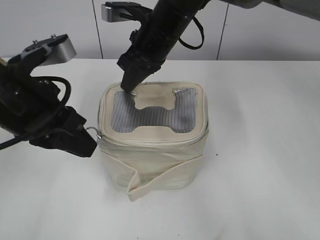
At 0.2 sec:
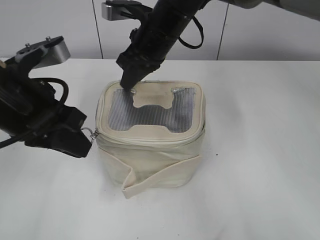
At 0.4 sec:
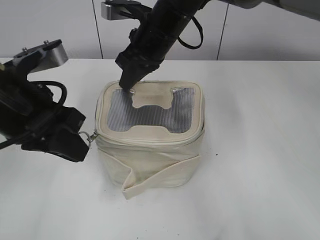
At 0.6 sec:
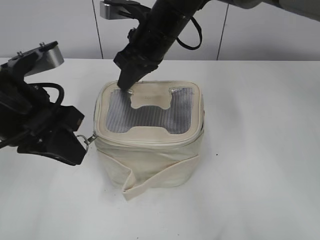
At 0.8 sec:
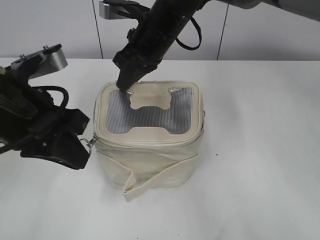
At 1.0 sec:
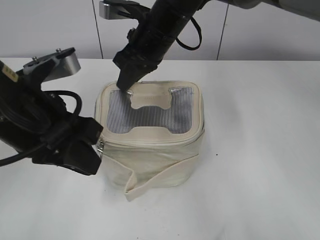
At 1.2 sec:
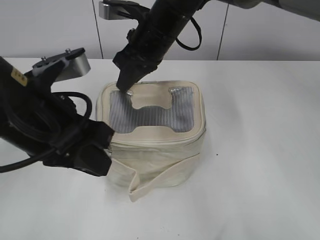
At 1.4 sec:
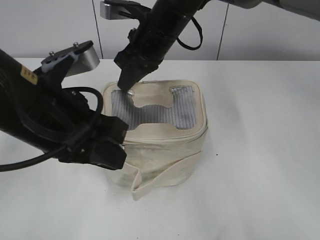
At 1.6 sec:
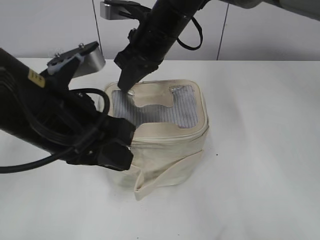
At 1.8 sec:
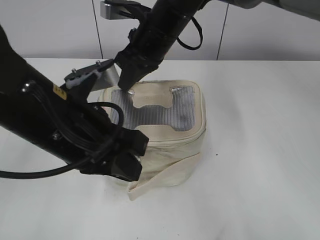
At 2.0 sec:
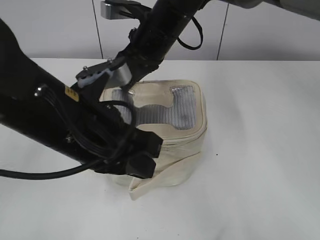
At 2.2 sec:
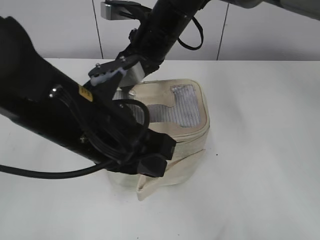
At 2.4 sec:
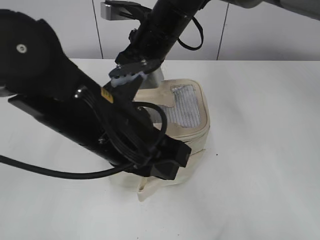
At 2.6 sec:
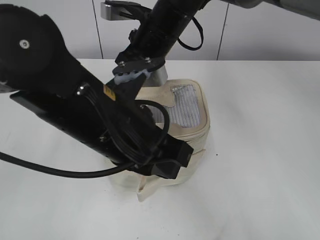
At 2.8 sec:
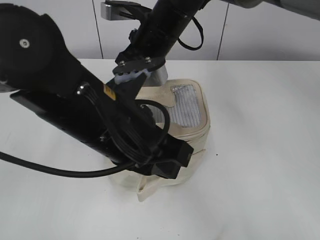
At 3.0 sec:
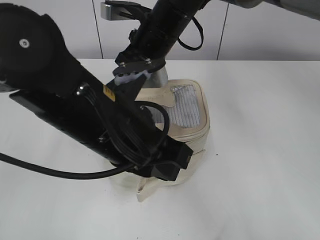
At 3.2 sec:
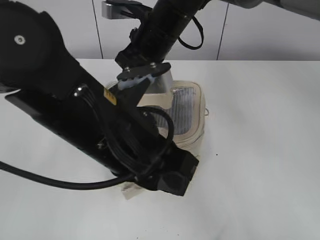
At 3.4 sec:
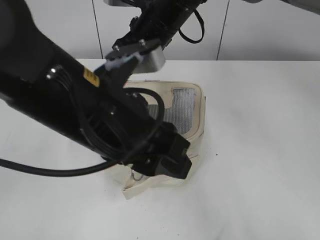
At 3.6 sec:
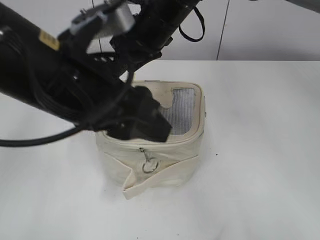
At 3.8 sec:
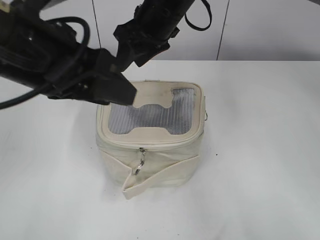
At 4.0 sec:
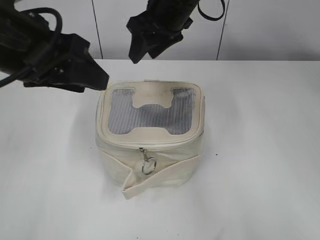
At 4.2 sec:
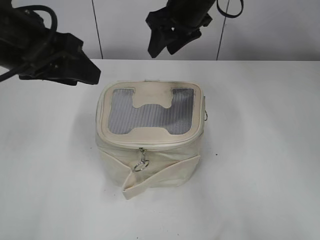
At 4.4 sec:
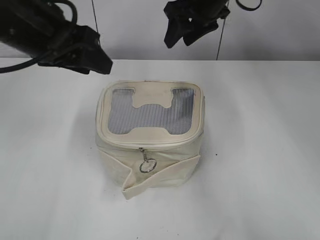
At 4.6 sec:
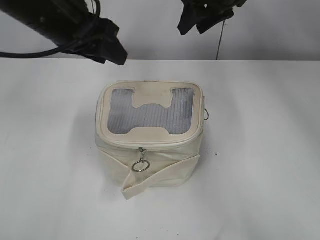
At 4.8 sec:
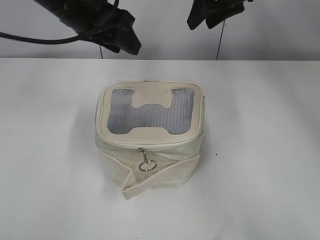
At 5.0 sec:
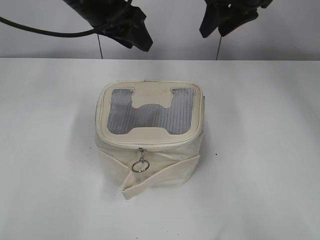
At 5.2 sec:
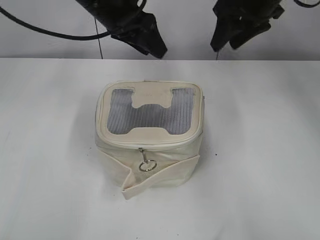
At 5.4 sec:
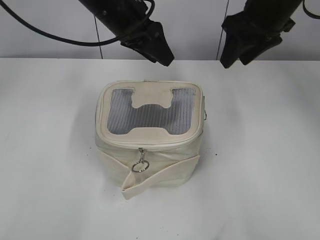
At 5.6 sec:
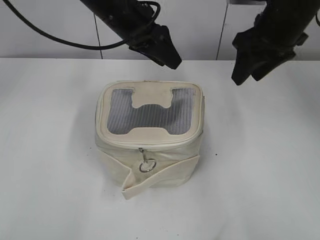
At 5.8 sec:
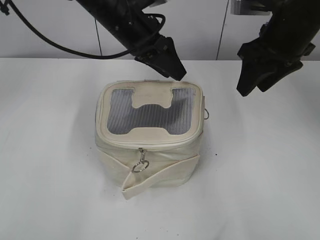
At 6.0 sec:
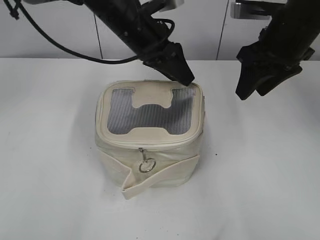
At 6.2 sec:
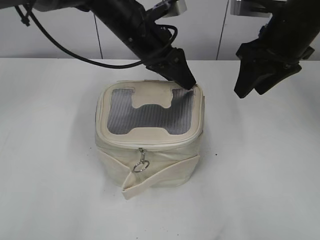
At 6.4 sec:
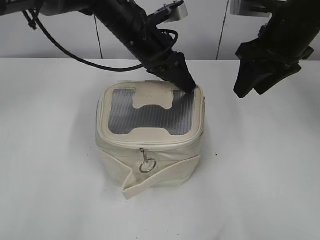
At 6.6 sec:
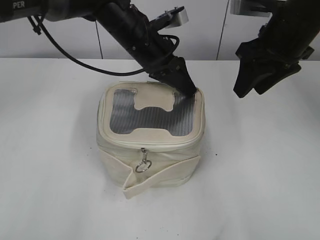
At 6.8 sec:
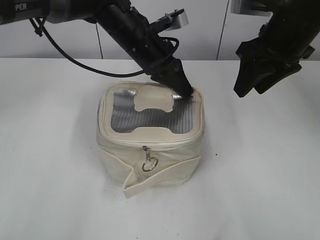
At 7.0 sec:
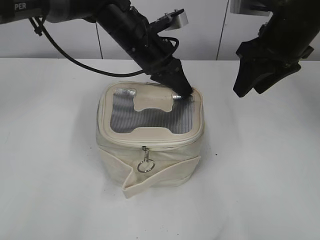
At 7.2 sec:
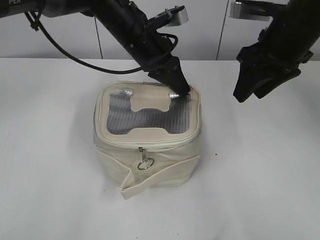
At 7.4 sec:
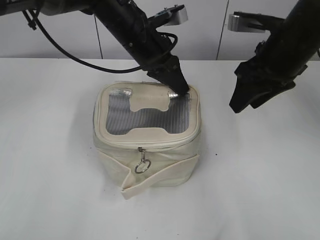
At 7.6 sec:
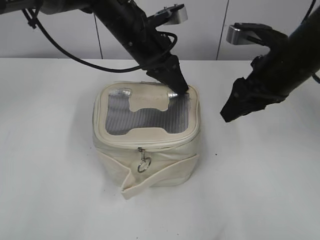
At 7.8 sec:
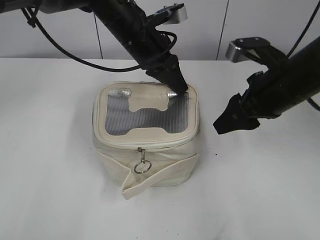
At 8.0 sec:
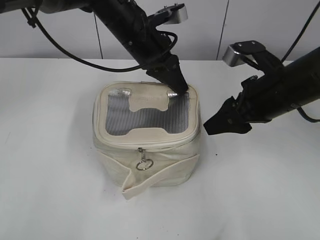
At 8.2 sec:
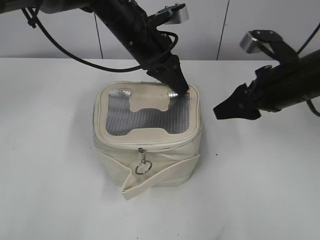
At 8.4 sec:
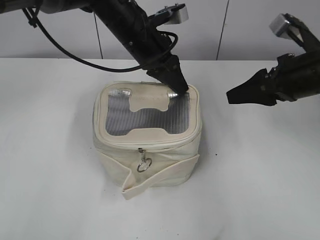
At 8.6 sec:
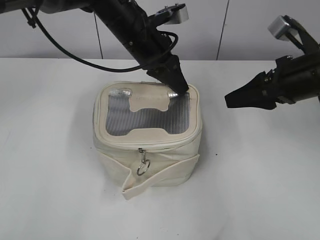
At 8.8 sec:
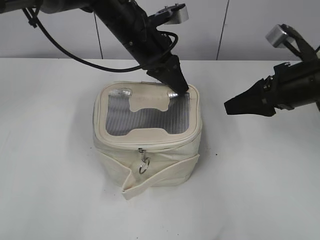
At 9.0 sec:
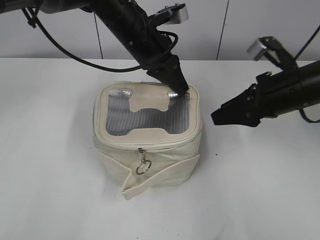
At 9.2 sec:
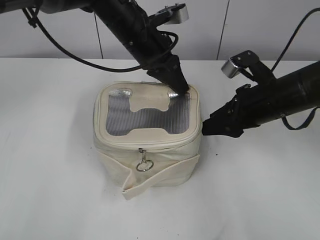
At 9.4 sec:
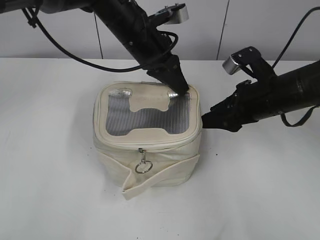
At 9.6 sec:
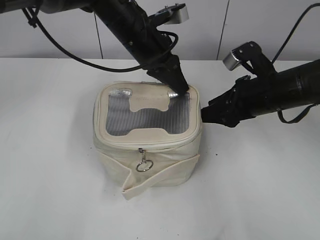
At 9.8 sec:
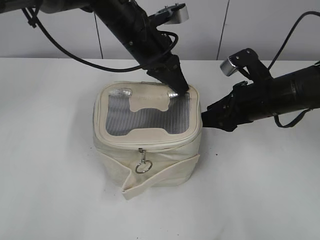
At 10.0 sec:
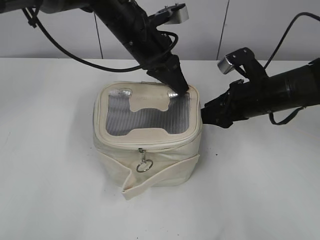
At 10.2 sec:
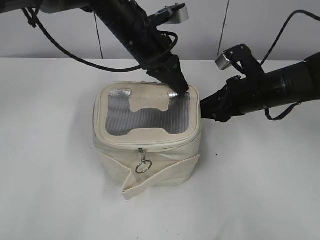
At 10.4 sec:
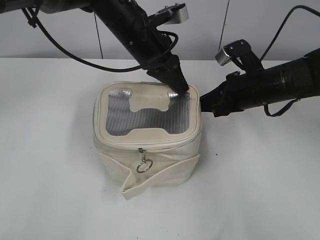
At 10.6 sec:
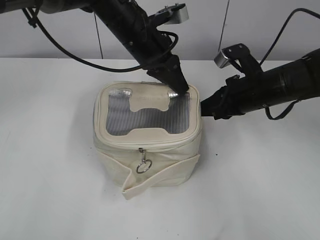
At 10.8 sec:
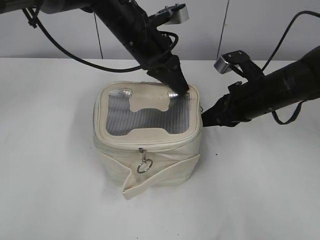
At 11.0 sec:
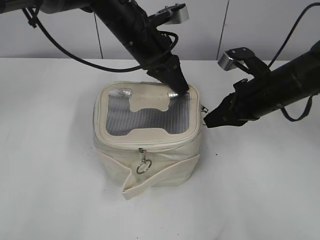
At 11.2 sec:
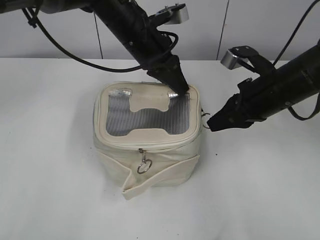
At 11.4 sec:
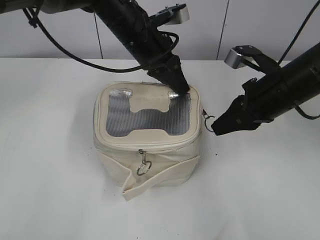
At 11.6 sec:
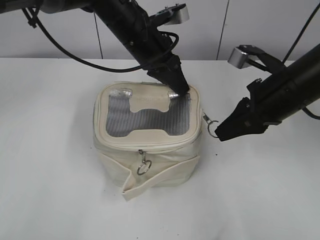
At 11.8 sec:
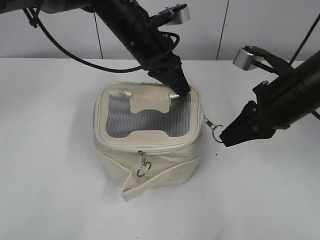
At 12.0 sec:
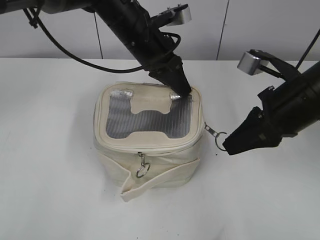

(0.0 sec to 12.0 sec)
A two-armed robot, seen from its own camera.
Step, 0.0 sec - 3.4 sec: Zip up the bag with your left hand.
0.0 sec - 1.6 sec: The left gripper shifts by some 5 cm.
1.6 sec - 3.0 sec: The left gripper heads to the right, covering roughly 5 cm.
3.0 sec - 4.4 sec: The left gripper goes about 15 cm to the left, forward and upward, and opens; the right gripper travels to the right and forward by roughly 10 cm, and opens up.
4.4 sec - 6.0 sec: The left gripper moves to the right, forward and downward, about 20 cm; the right gripper is displaced to the right and backward by roughly 15 cm.
6.0 sec - 7.6 sec: The right gripper changes place by about 5 cm. The left gripper closes up.
7.6 sec - 9.0 sec: The right gripper ends up some 5 cm from where it was.
9.0 sec - 10.4 sec: The right gripper changes place by about 5 cm, and closes its fingers.
10.4 sec - 12.0 sec: The right gripper travels backward and upward by some 10 cm.

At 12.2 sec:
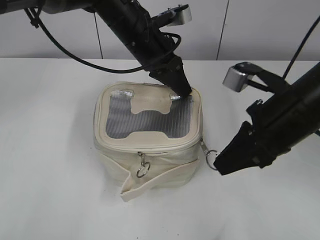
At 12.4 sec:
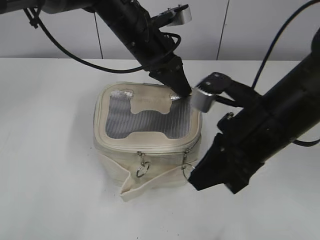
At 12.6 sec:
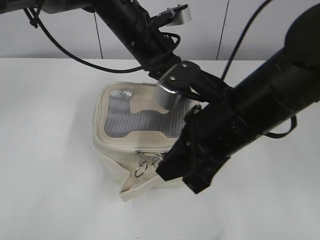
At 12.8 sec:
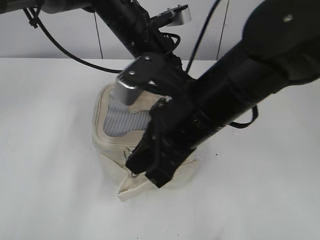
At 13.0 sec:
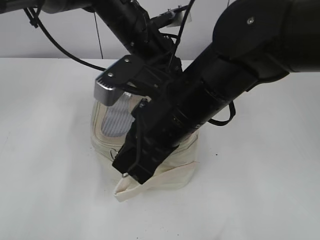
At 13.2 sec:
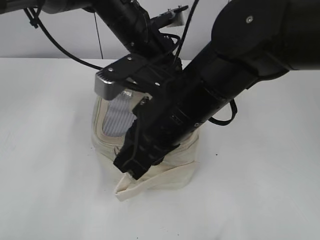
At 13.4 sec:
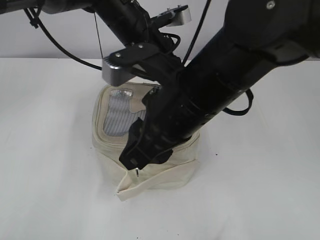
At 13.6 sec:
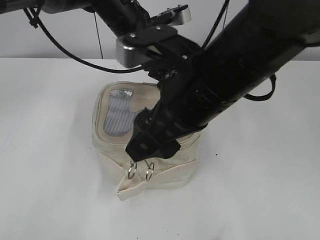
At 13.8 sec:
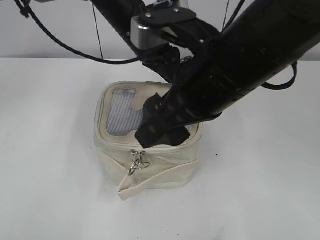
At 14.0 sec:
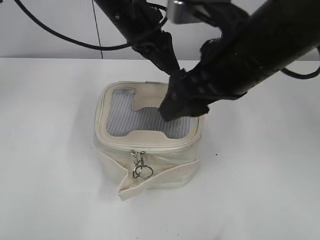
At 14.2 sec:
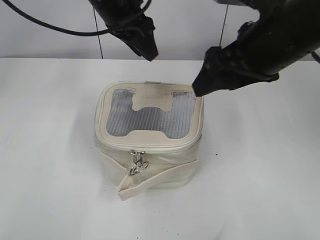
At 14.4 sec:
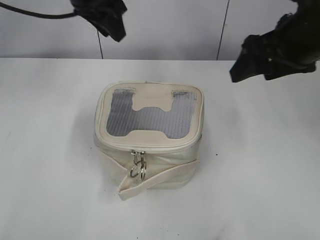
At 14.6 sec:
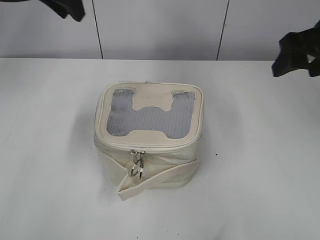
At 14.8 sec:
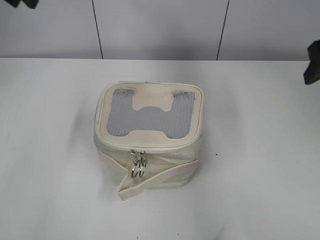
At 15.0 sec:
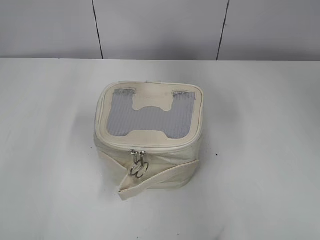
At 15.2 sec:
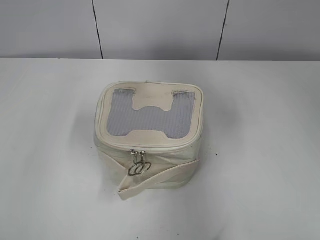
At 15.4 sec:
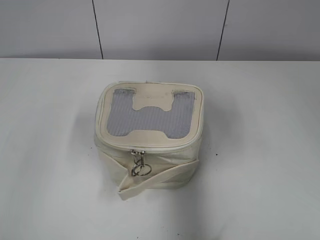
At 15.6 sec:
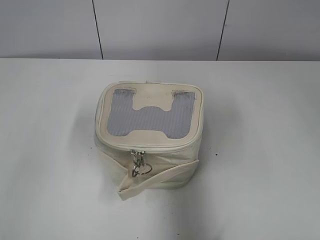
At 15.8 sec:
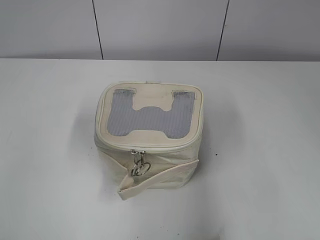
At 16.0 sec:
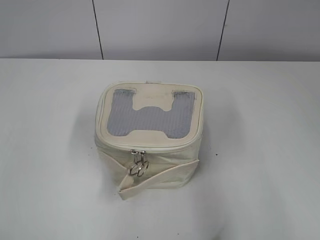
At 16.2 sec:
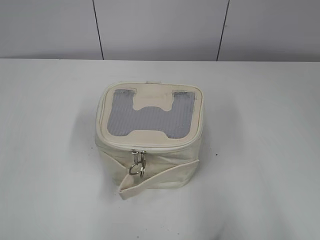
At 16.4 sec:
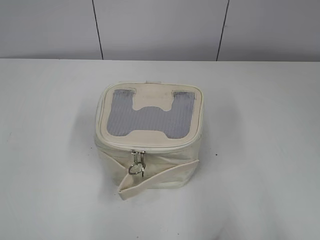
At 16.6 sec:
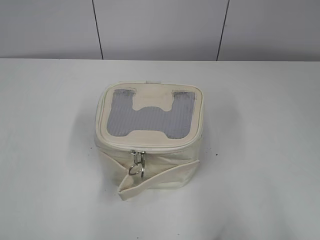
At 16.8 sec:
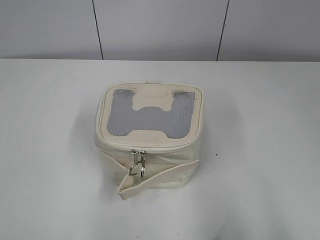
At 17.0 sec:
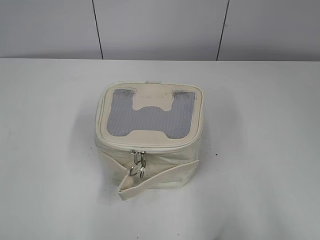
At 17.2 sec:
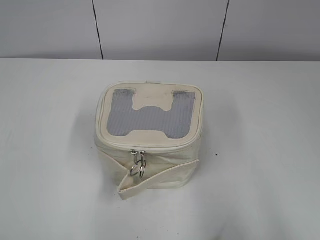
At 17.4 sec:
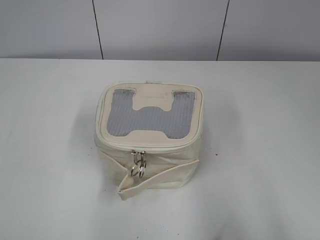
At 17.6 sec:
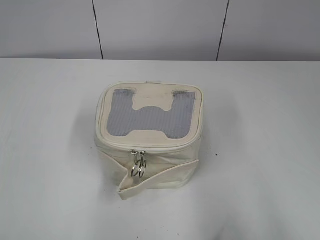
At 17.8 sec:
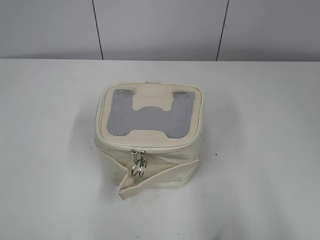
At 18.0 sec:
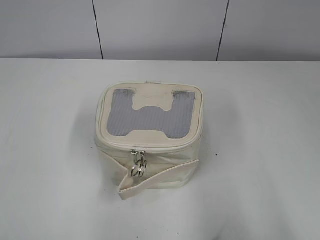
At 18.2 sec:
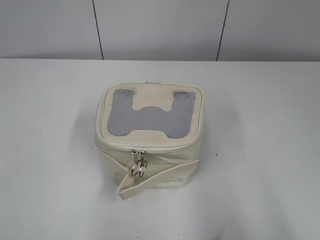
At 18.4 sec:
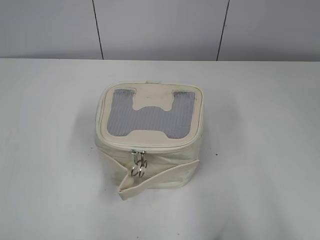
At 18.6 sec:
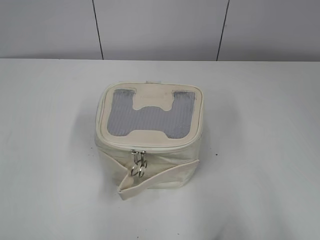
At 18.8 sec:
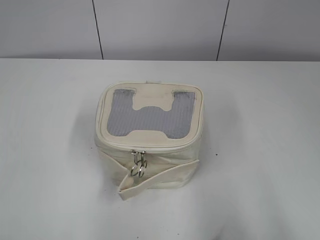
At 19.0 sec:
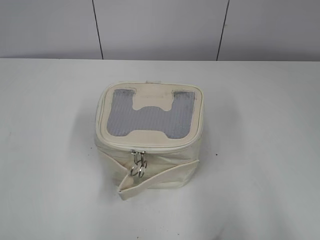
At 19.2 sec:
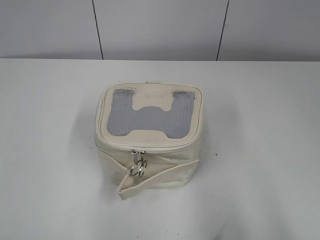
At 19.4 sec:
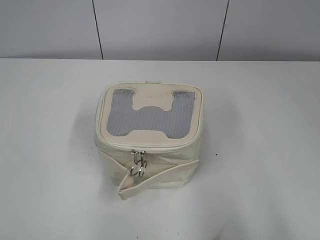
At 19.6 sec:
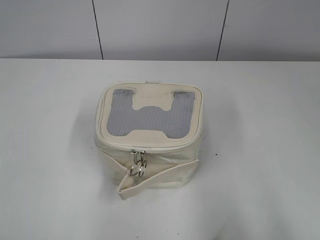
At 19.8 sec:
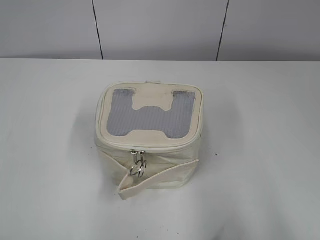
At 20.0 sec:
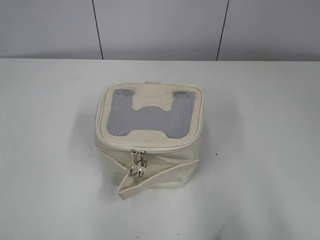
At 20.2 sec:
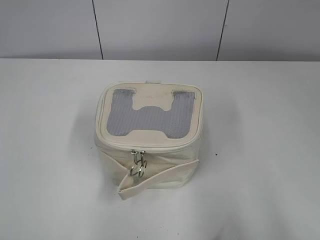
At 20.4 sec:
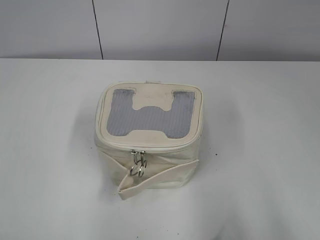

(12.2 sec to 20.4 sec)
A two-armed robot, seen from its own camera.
Step, 13.6 sec - 13.8 sec: Hold the bag with your left hand.
12.2 sec - 13.8 sec: The right gripper heads to the left and upward, covering roughly 15 cm, and opens its fingers; the left gripper opens its fingers.
13.8 sec - 15.4 sec: The left gripper shifts approximately 35 cm to the left, backward and upward; the right gripper heads to the right, covering approximately 25 cm.
15.4 sec - 17.2 sec: The two grippers go about 20 cm backward.
18.8 sec - 20.4 sec: Neither gripper changes place.
